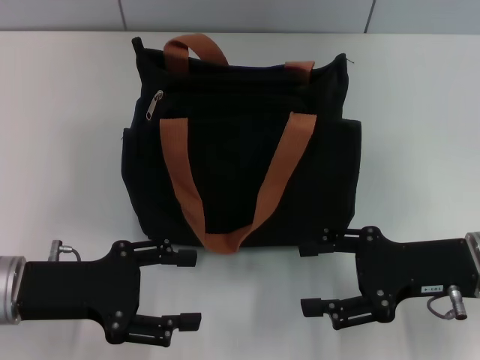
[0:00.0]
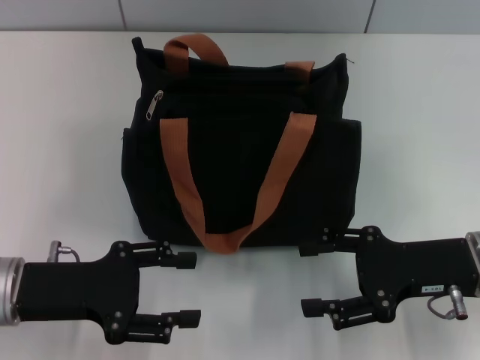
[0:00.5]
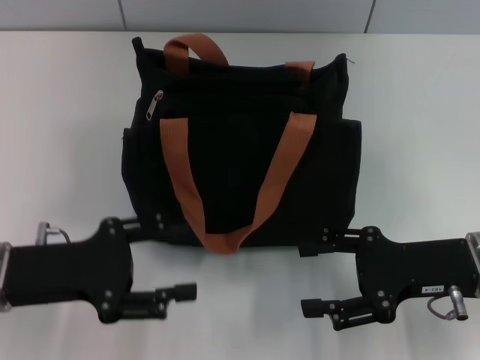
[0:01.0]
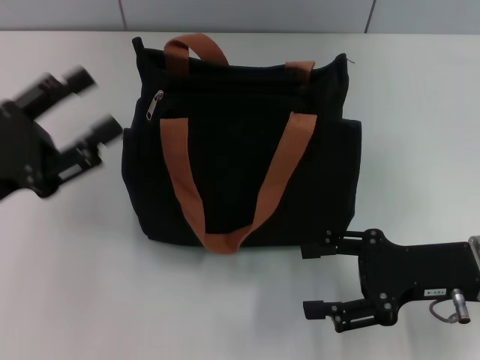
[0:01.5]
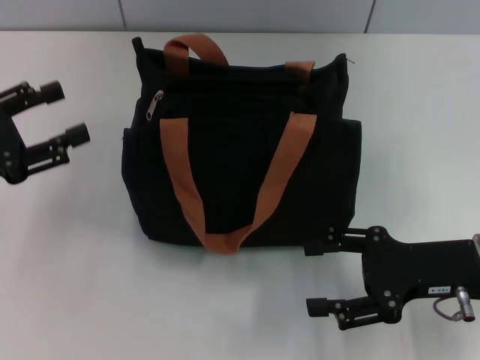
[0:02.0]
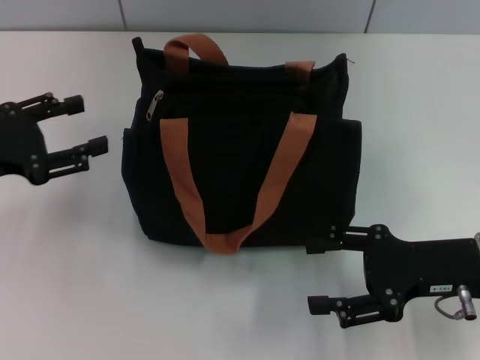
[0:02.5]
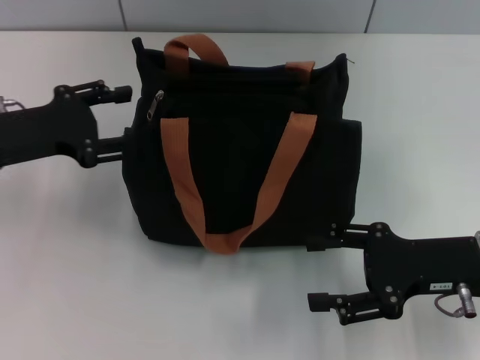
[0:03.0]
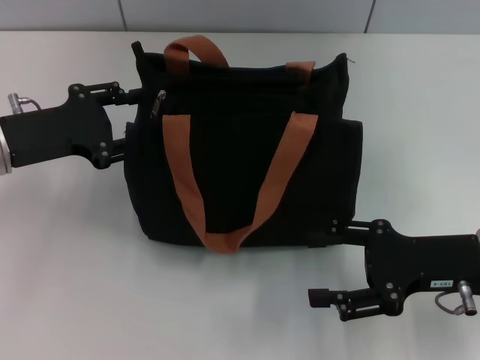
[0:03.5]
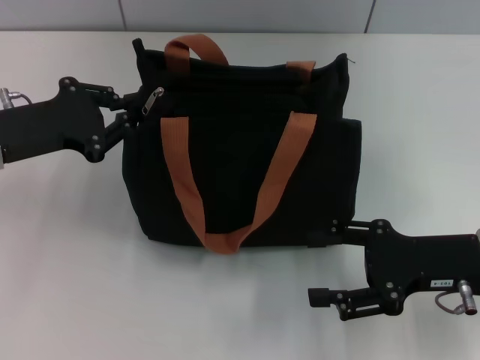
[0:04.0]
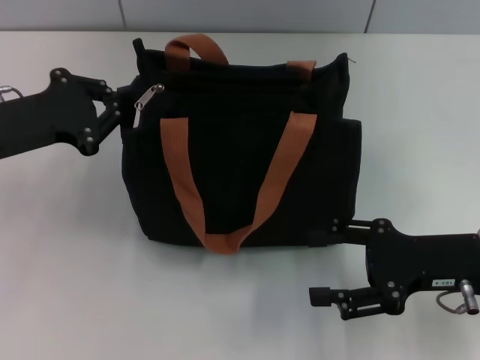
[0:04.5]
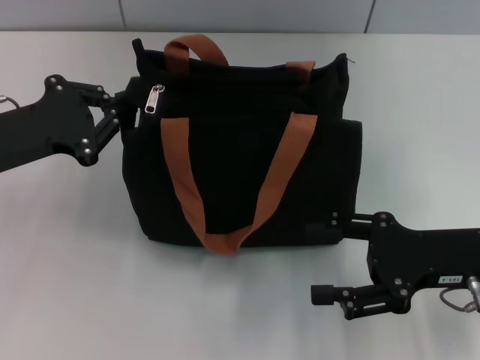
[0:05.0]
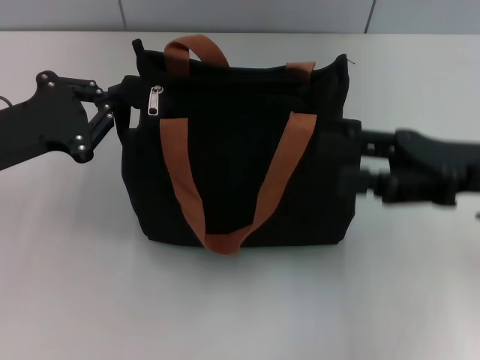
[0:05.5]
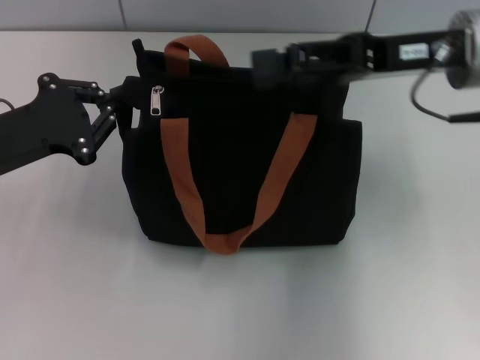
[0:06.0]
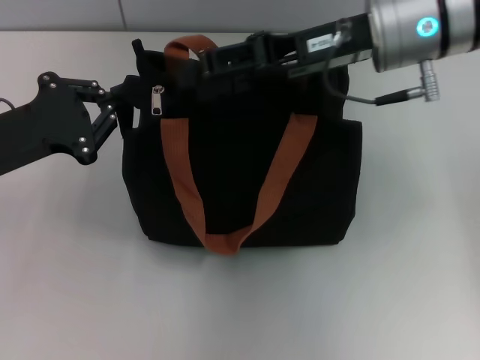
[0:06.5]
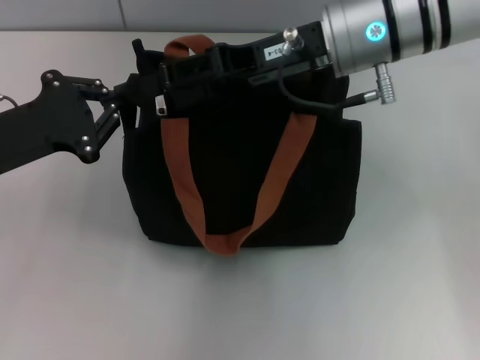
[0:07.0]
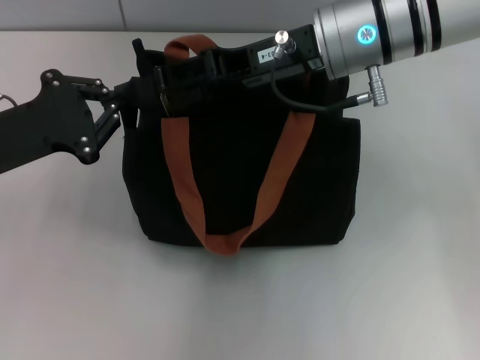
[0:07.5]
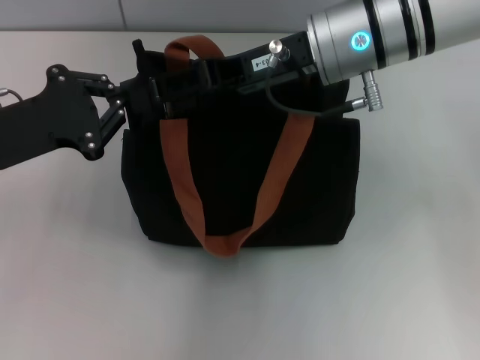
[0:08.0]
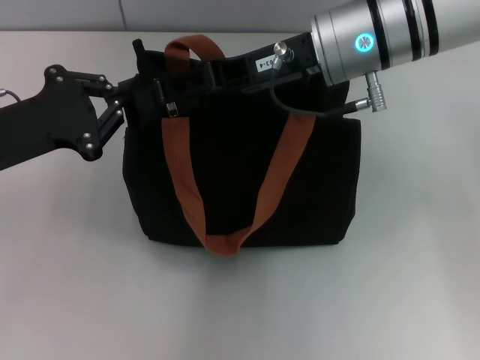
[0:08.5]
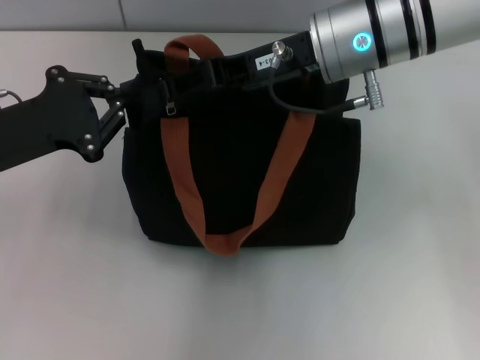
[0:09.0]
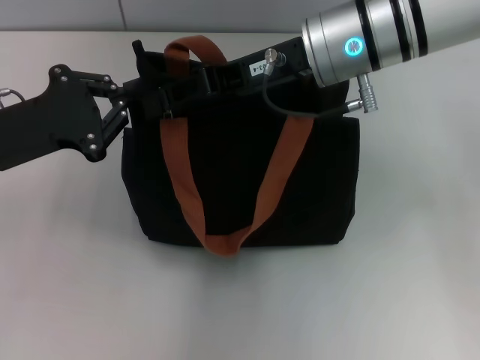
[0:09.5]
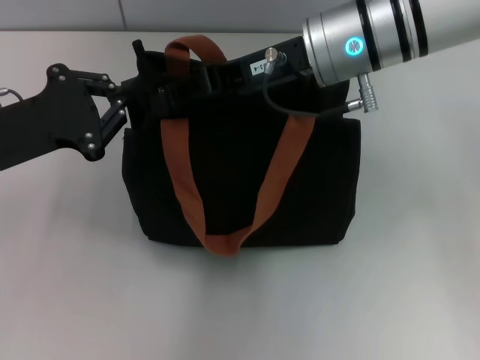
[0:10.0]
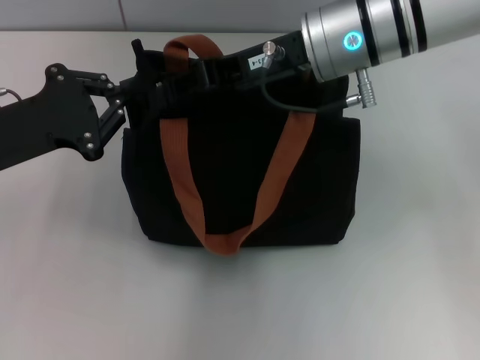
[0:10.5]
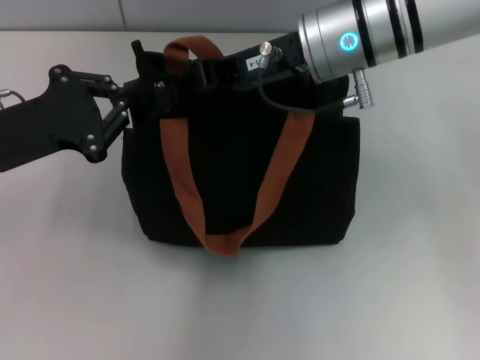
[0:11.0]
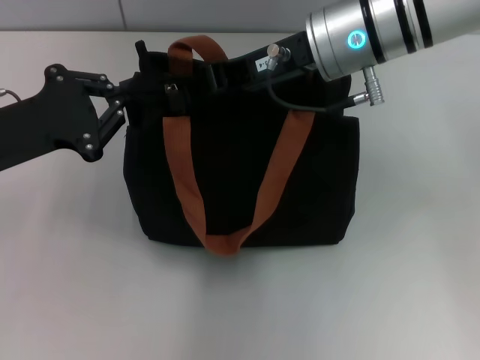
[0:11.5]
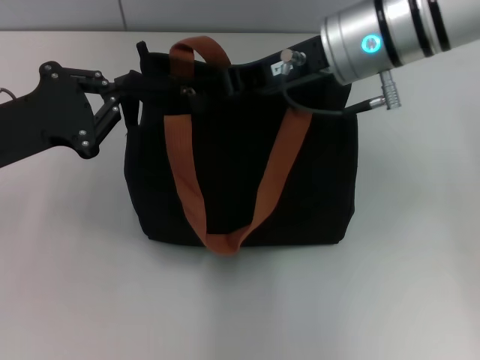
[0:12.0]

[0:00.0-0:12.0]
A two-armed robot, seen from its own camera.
0:00.0 to 0:02.0: The left gripper heads to the left, covering roughly 10 cm.
0:02.0 to 0:04.0: The left gripper heads forward and to the right, covering roughly 10 cm, and closes its fingers.
0:04.0 to 0:06.0: The right gripper goes about 20 cm upward, forward and to the left; the left gripper closes up.
0:06.0 to 0:08.0: The right gripper travels to the left by roughly 10 cm.
0:08.0 to 0:10.0: The right gripper closes its fingers.
0:10.0 to 0:12.0: The grippers make only small movements.

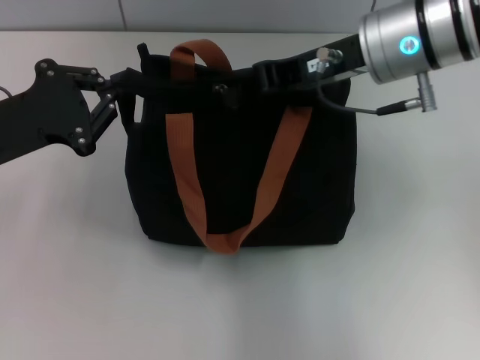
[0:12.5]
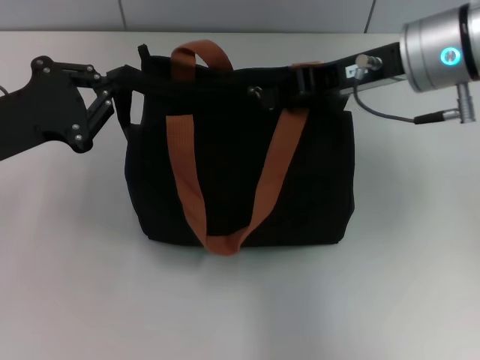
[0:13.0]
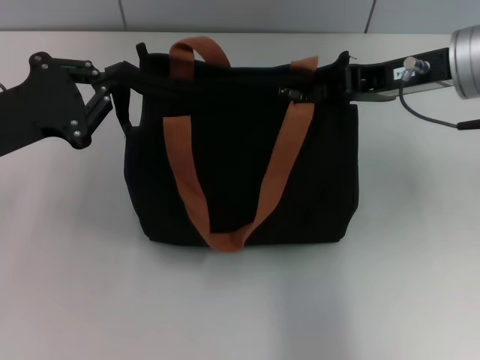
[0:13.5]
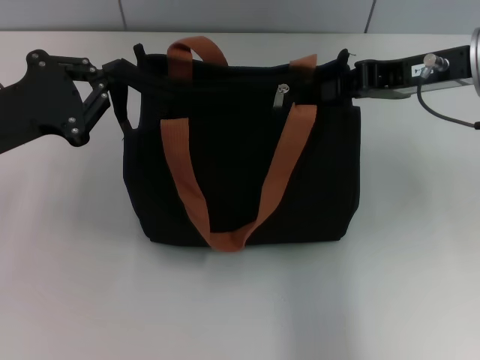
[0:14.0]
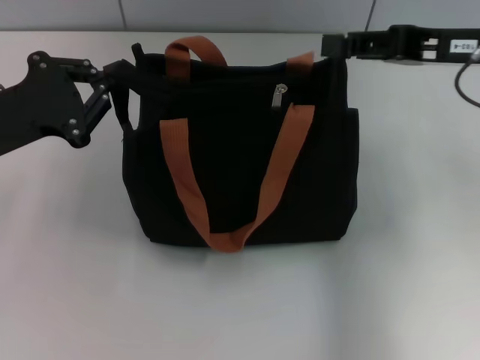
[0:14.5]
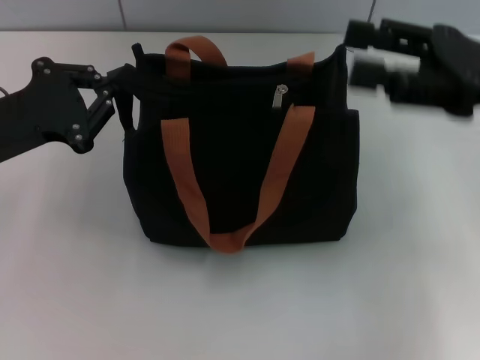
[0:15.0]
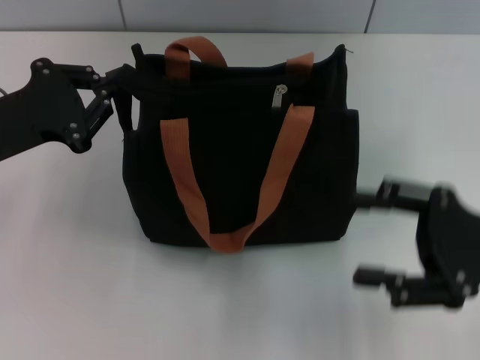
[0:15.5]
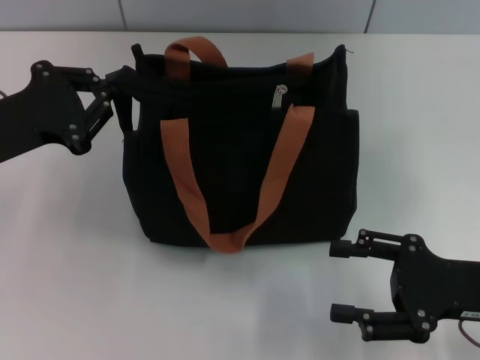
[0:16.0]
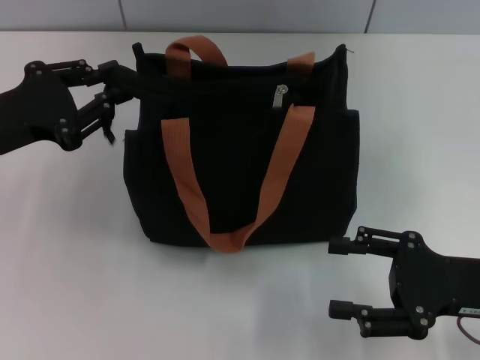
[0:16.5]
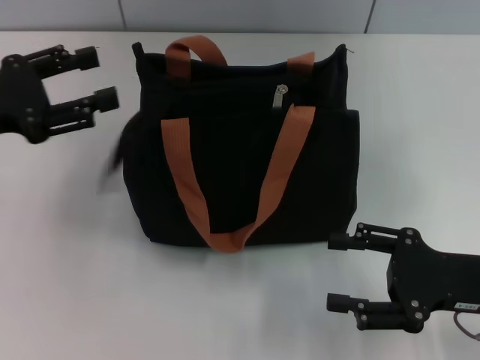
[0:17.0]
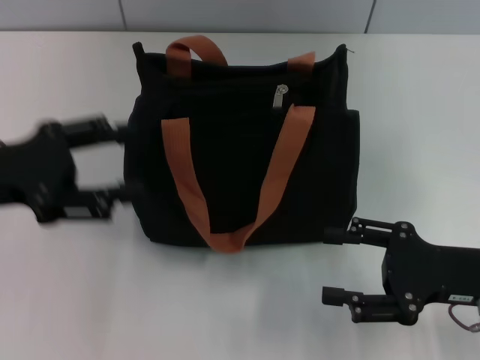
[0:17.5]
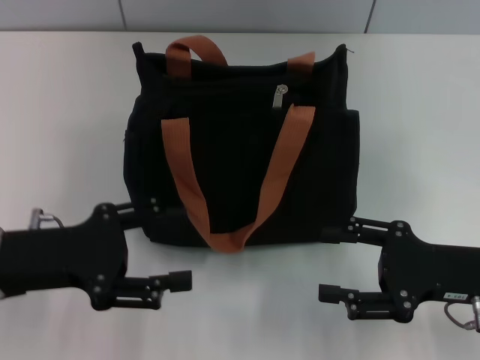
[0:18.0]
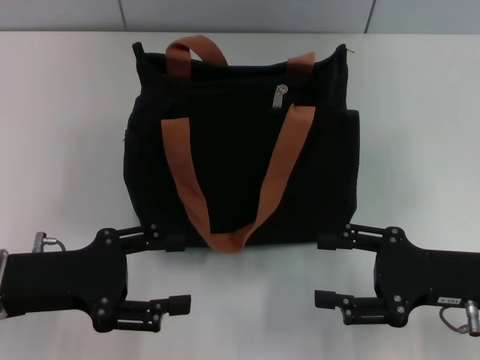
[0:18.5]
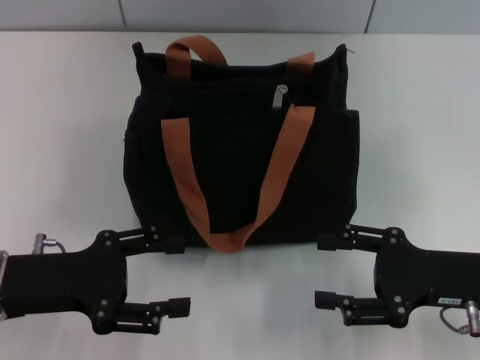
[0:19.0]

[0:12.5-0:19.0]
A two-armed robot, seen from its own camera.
Step, 0:14.0 to 0:17.0: Grab the zipper with your left hand.
0:12.5 to 0:14.5: The right gripper is displaced to the right by about 10 cm.
0:14.5 to 0:17.0: The right gripper travels downward and backward by some 20 cm, and opens, while the left gripper opens its fingers.
0:17.0 to 0:19.0: The left gripper is displaced downward, backward and to the right by approximately 10 cm, and opens.
